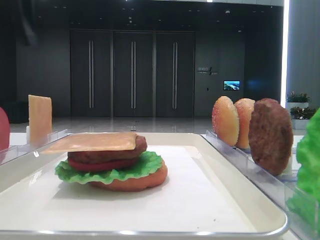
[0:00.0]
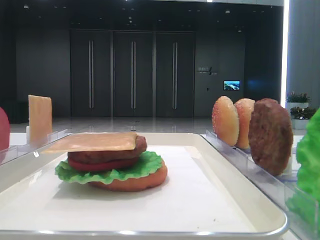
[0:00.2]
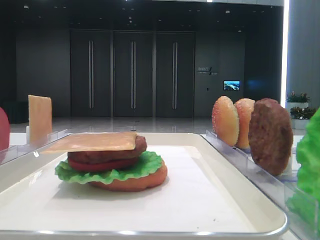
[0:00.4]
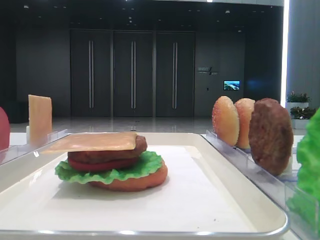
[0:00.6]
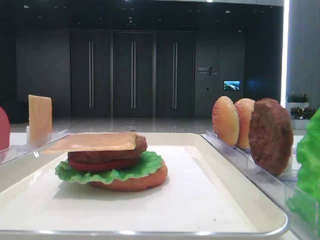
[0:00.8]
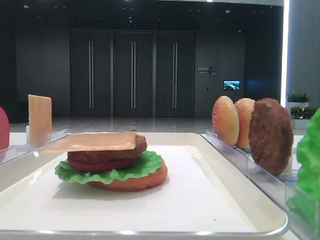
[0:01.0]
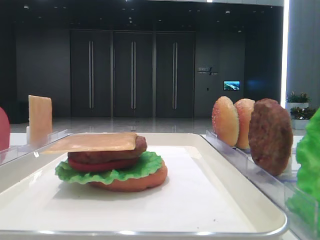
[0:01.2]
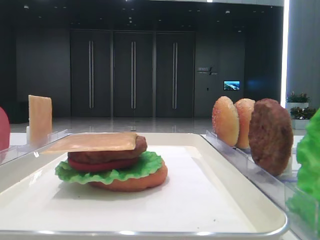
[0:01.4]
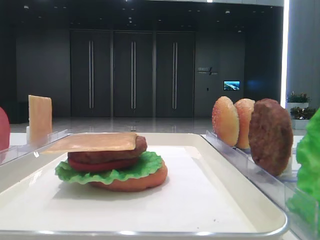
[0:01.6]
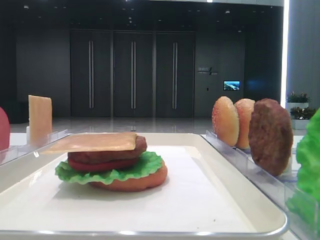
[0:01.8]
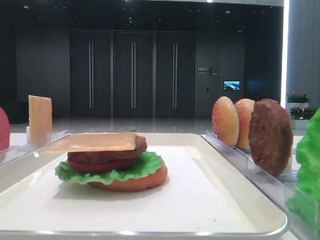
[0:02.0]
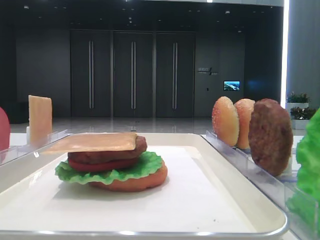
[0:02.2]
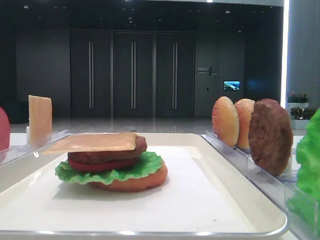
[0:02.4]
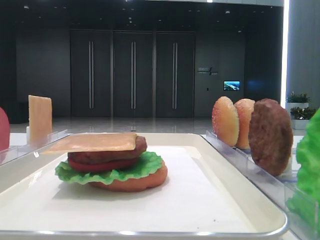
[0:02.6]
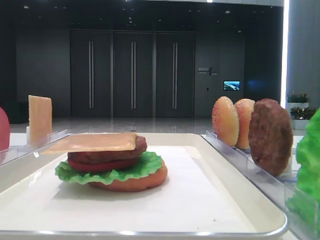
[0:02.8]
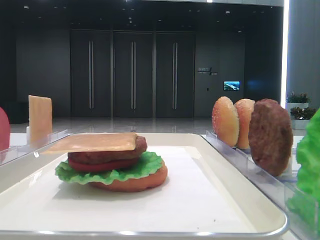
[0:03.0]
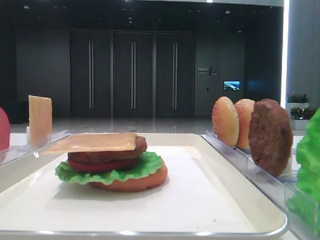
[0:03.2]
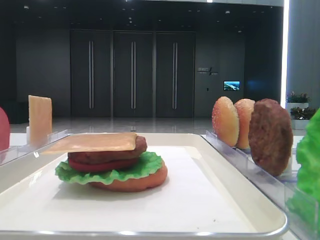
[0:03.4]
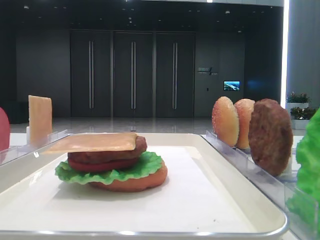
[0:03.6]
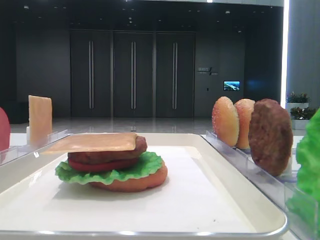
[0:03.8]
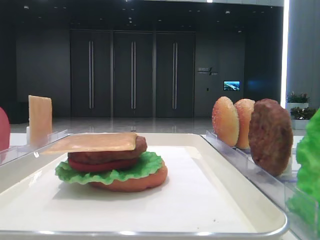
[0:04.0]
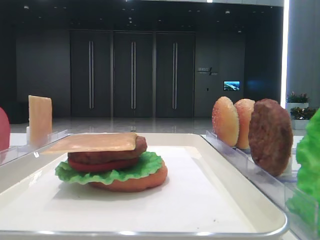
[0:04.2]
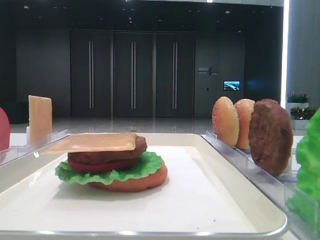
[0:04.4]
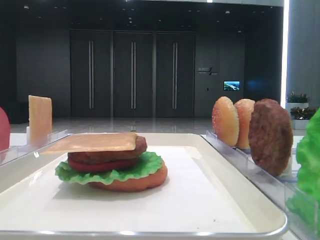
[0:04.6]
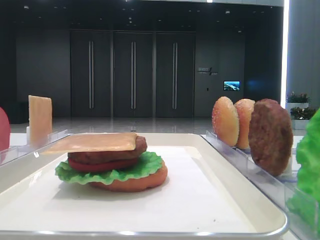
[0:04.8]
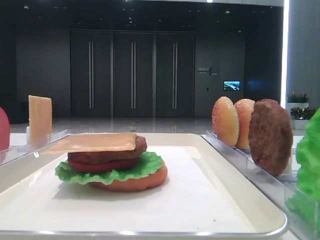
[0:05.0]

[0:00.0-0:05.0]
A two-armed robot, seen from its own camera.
0:03.4 to 0:05.0: The two grippers keep their place.

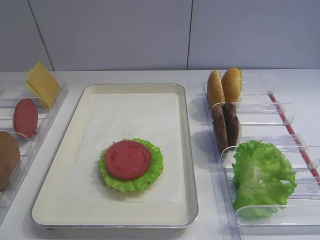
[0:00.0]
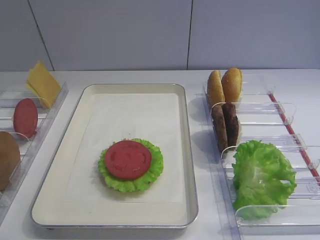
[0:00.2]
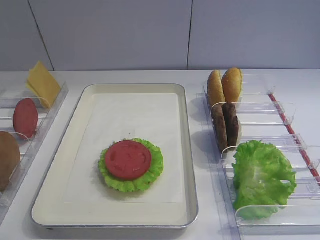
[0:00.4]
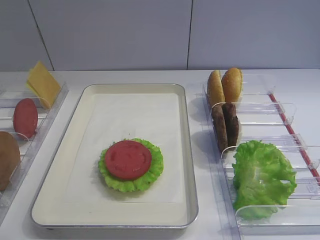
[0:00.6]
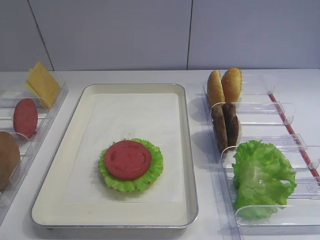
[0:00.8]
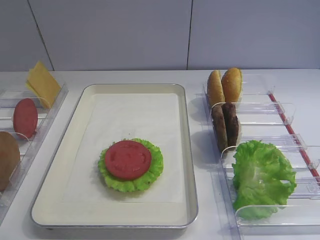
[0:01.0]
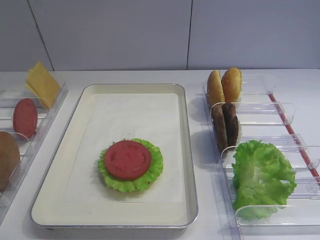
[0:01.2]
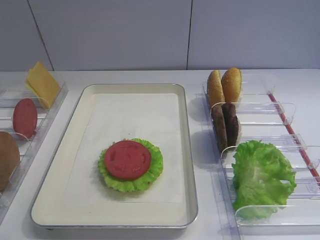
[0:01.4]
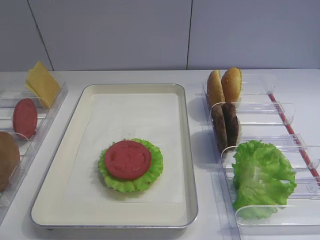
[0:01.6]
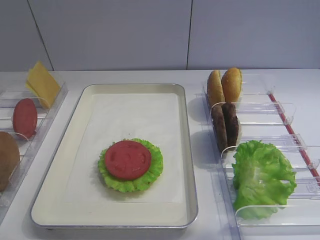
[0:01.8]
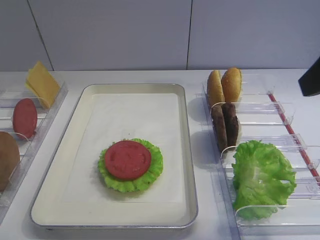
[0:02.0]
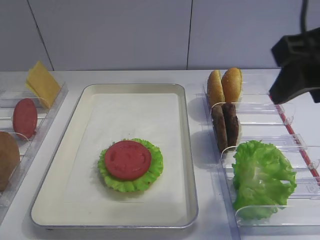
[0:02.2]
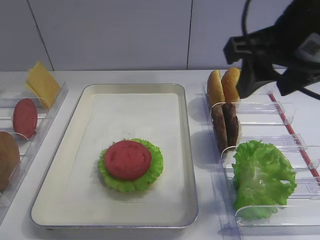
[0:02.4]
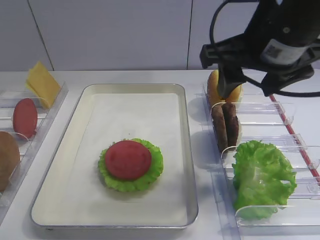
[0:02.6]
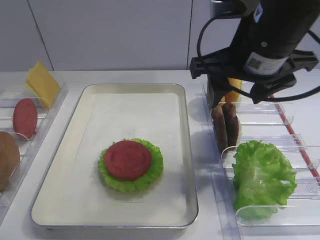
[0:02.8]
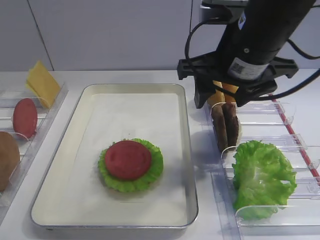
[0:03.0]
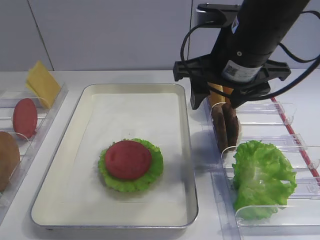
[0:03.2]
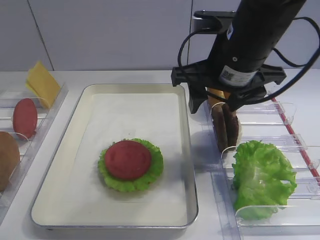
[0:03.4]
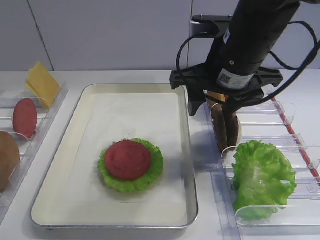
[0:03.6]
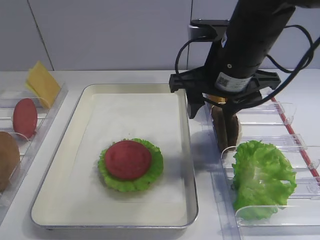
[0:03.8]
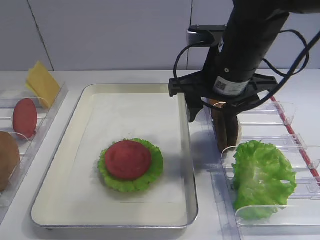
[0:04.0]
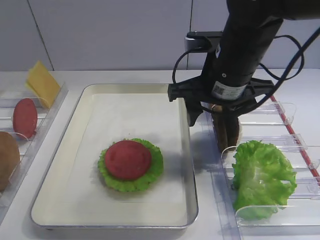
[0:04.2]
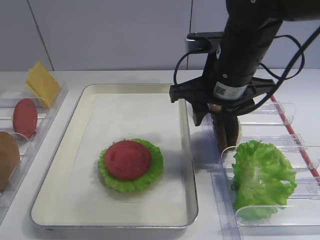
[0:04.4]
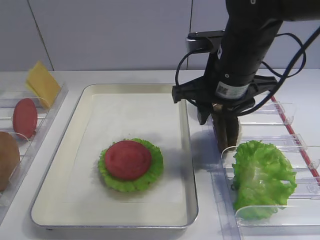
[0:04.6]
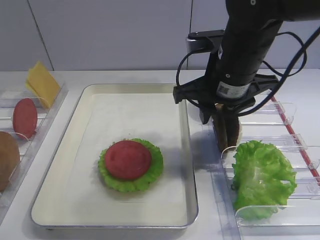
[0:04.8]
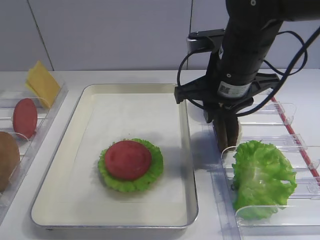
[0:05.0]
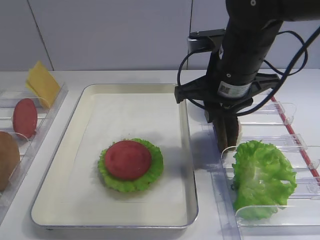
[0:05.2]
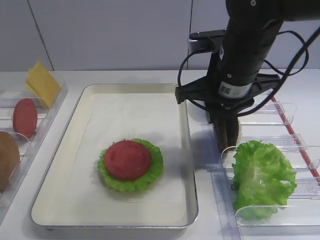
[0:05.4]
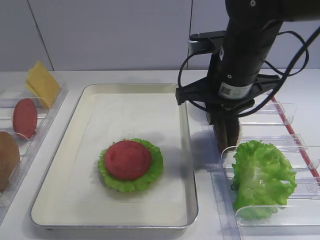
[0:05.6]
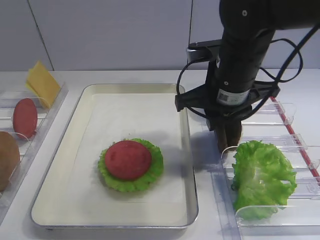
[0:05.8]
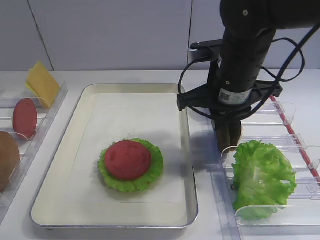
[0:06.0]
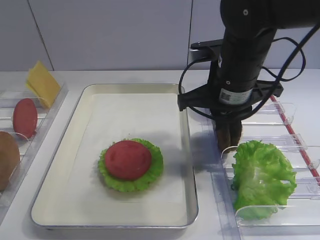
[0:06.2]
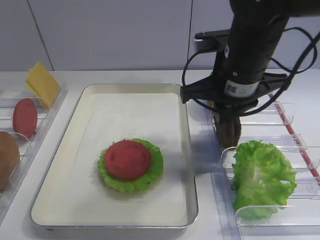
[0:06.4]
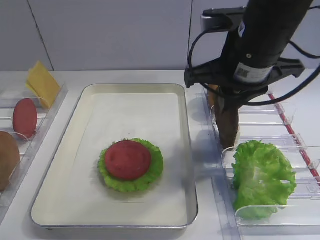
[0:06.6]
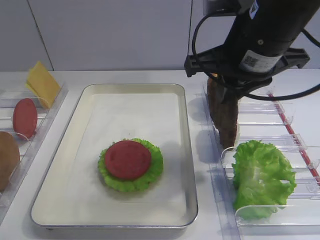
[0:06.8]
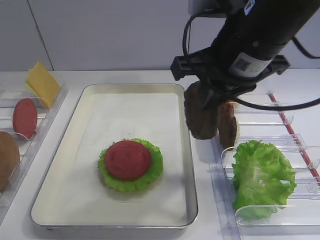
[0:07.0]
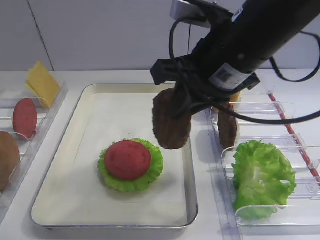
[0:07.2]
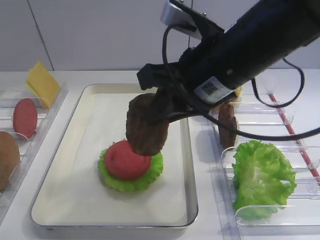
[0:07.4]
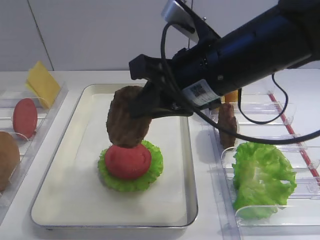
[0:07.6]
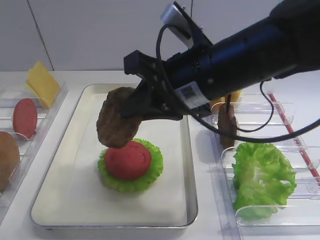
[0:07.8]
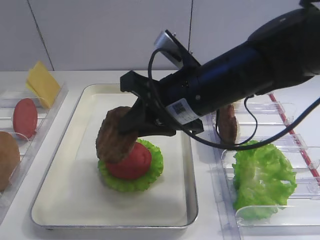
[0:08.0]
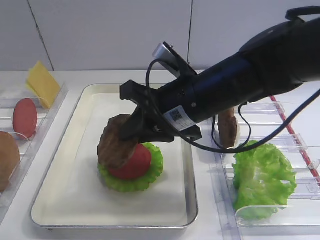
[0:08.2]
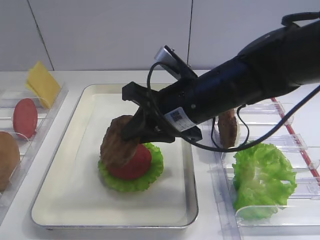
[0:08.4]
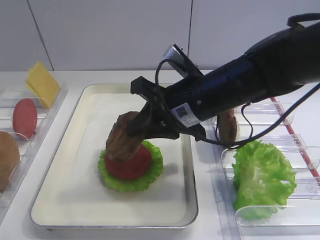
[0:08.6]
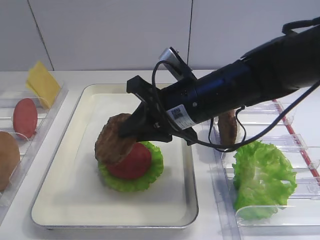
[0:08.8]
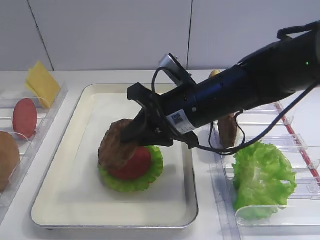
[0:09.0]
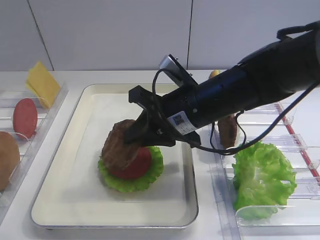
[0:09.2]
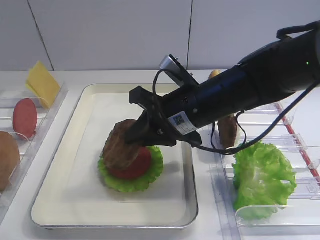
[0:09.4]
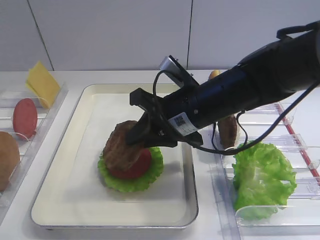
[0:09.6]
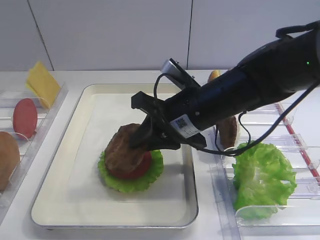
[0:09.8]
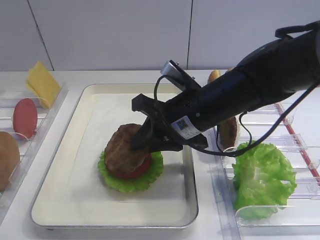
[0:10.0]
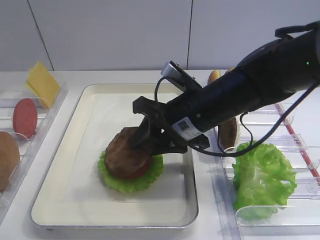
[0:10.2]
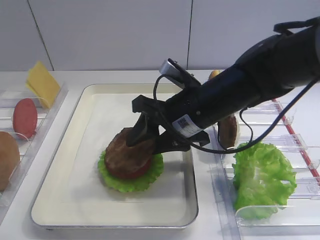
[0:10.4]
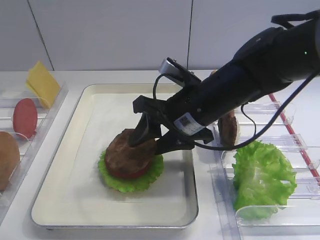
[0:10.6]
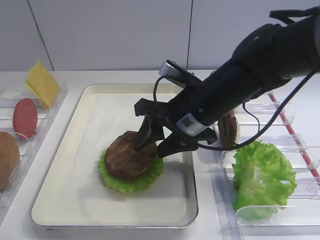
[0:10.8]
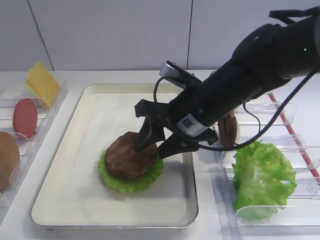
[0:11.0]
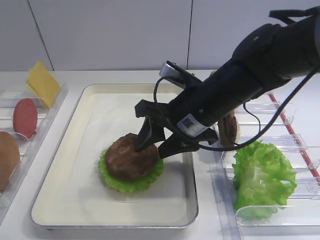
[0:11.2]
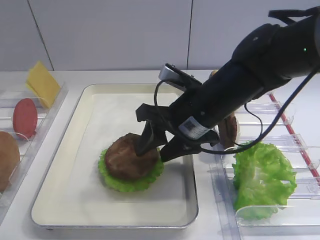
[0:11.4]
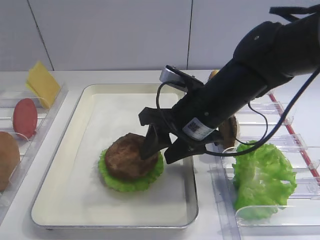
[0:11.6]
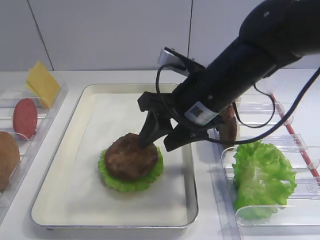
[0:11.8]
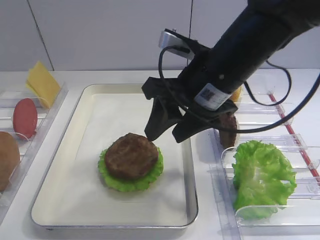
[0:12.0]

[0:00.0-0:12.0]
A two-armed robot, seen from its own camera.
Step, 0:00.0 to 0:06.8: Pick up the cutlet with the right gripper.
Step, 0:07.0 to 0:11.8: Place the cutlet on the tomato slice with the right gripper.
0:01.6 to 0:03.0: The right gripper shifts approximately 20 cm forward and to the left.
0:03.0 to 0:04.4: The right gripper shifts by about 5 cm.
0:04.4 to 0:06.0: The right gripper closes.
0:06.0 to 0:07.6: The right gripper travels backward by approximately 5 cm.
0:07.6 to 0:09.0: The right gripper is displaced downward by roughly 10 cm.
0:09.0 to 0:10.4: The right gripper opens up.
0:10.4 to 0:12.0: The right gripper moves upward, roughly 5 cm.

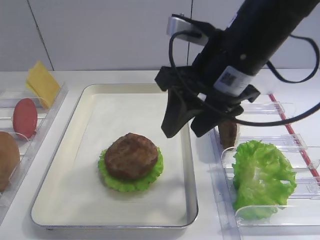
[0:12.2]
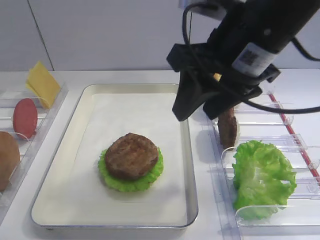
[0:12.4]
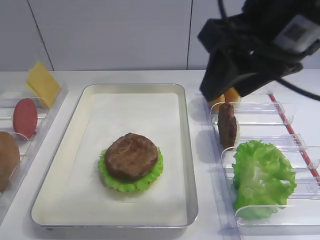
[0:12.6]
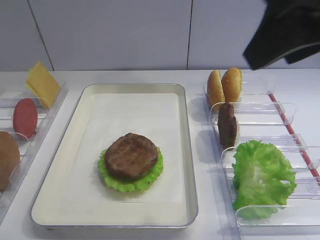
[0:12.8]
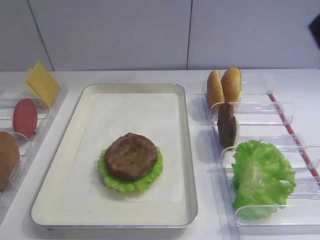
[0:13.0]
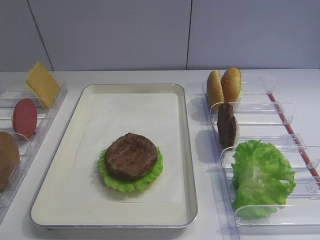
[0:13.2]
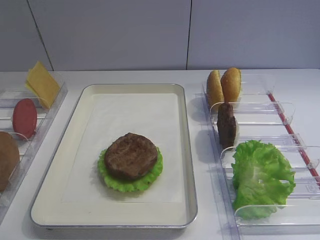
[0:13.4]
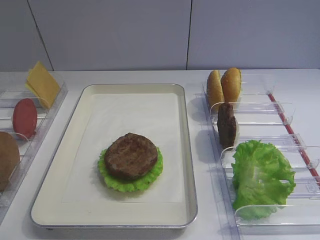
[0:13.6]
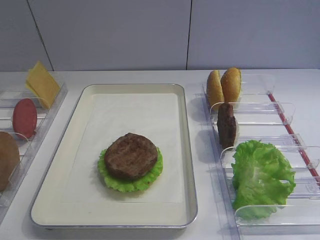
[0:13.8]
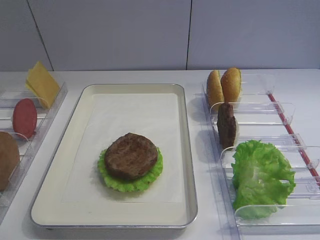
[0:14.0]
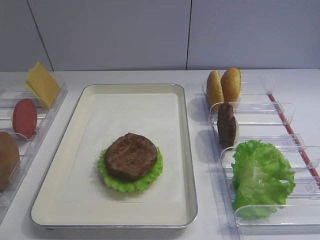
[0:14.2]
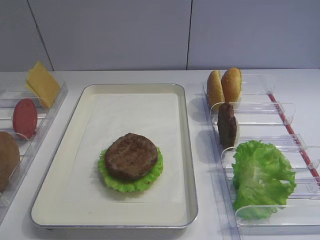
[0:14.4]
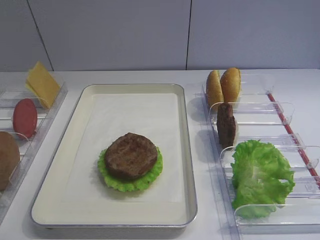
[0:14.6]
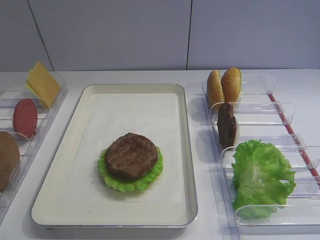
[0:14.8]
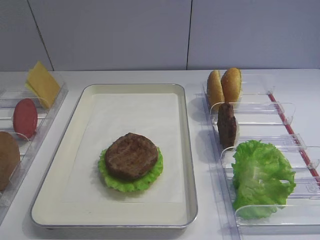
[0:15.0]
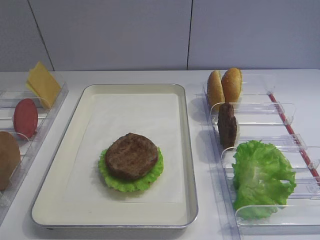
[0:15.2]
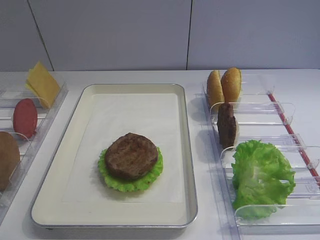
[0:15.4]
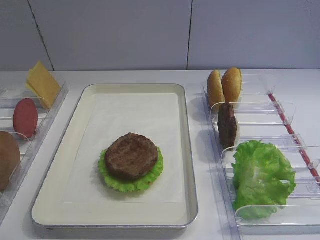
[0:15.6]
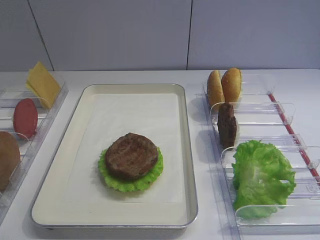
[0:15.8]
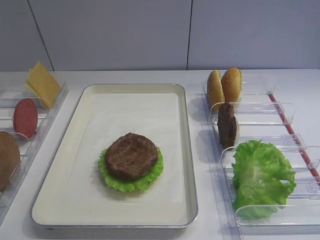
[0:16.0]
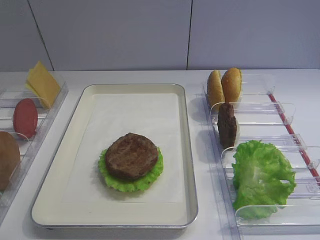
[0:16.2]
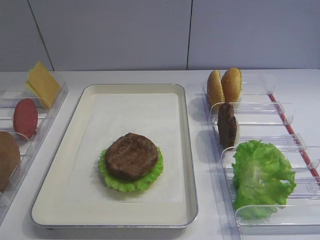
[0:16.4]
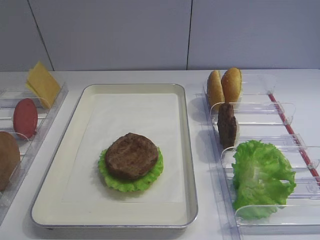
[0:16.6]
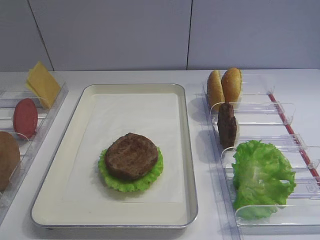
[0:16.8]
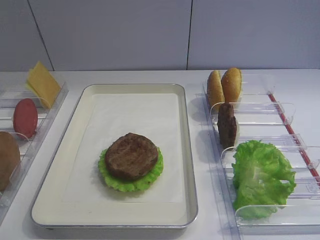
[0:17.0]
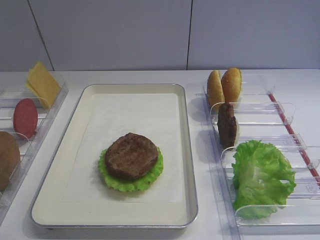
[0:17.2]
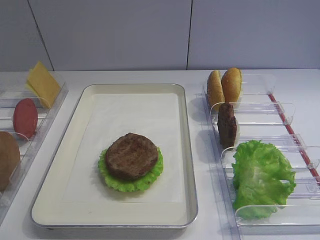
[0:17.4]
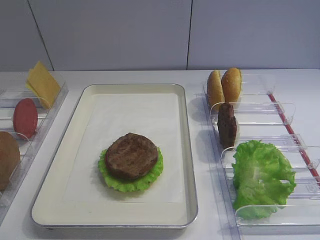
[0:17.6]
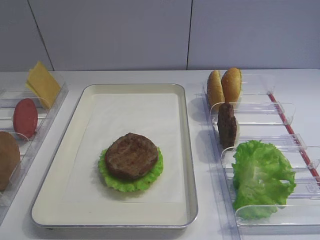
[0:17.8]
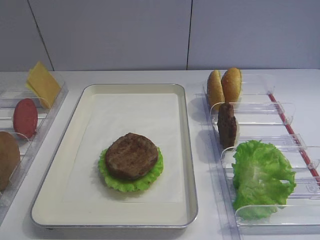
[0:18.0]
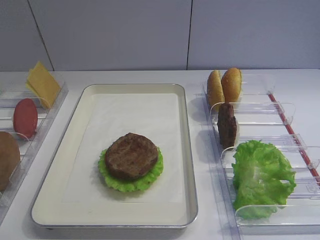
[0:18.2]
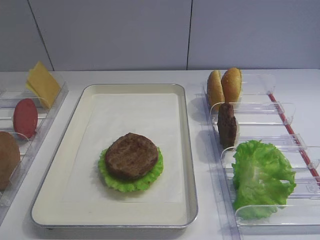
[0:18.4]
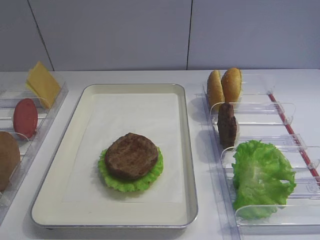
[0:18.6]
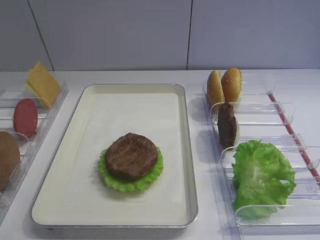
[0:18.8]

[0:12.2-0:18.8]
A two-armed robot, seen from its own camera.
0:12.2 to 0:13.8: The right gripper moves backward and to the right, roughly 30 cm.
0:15.4 to 0:18.8: The two grippers keep their place.
